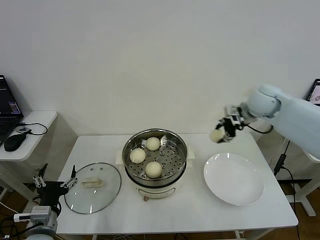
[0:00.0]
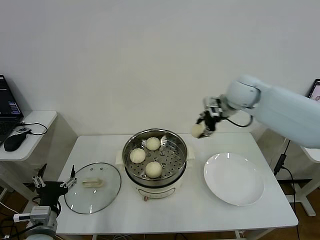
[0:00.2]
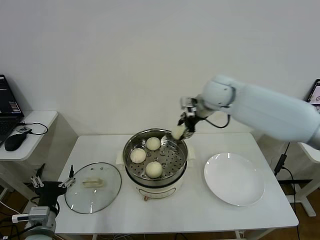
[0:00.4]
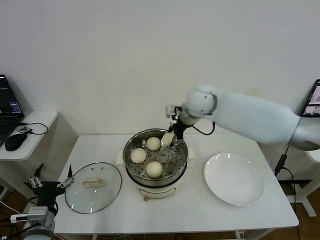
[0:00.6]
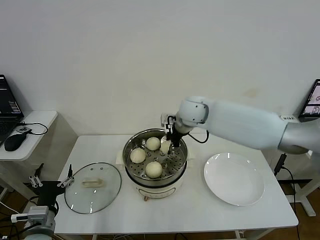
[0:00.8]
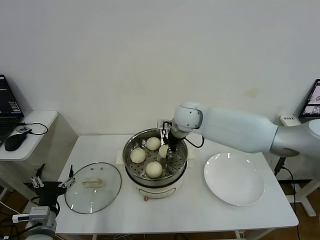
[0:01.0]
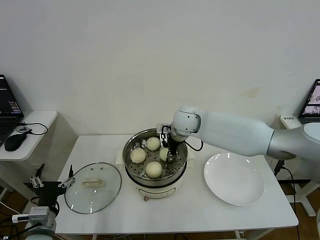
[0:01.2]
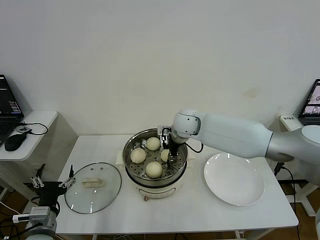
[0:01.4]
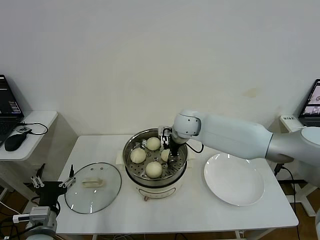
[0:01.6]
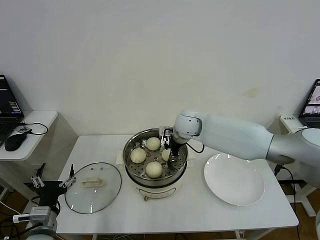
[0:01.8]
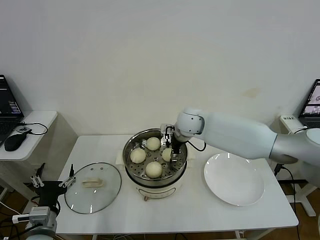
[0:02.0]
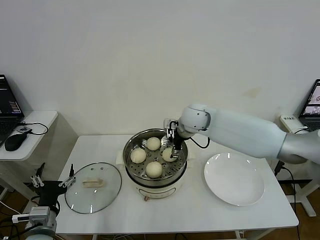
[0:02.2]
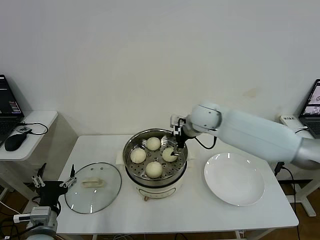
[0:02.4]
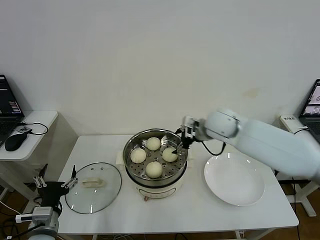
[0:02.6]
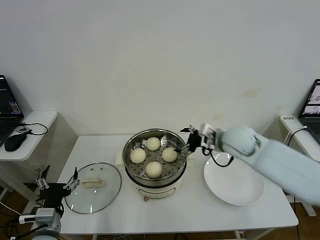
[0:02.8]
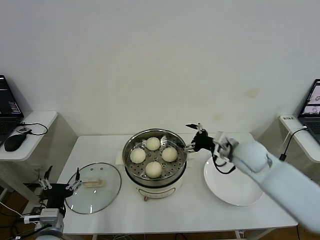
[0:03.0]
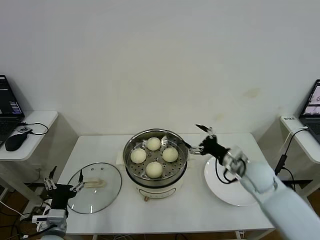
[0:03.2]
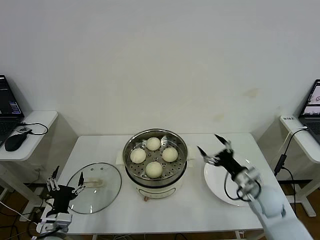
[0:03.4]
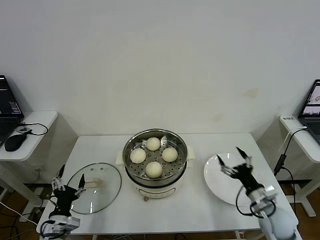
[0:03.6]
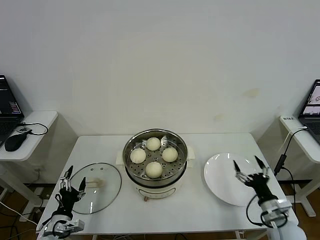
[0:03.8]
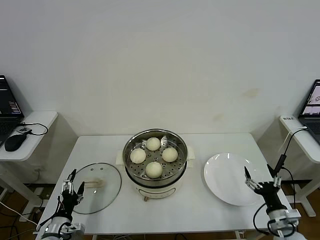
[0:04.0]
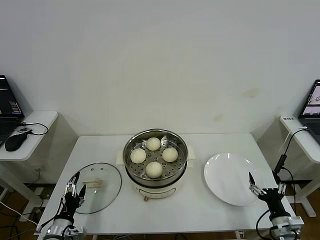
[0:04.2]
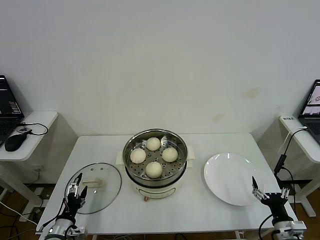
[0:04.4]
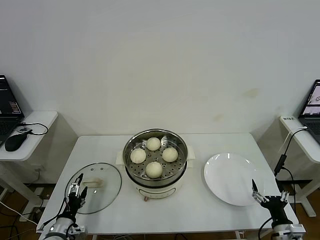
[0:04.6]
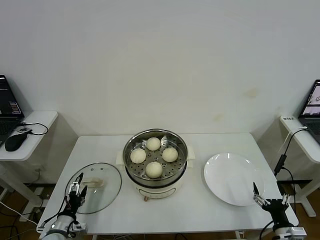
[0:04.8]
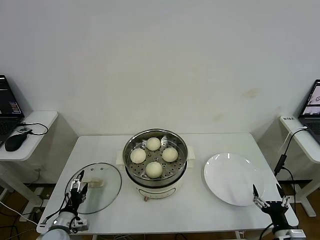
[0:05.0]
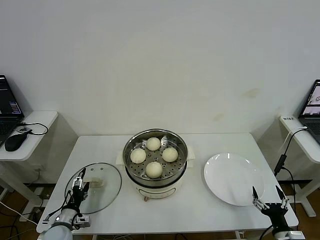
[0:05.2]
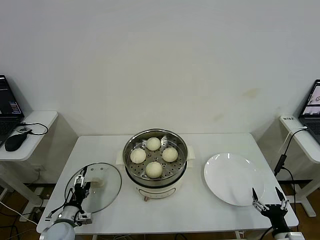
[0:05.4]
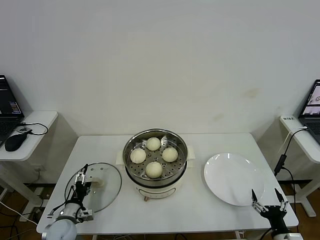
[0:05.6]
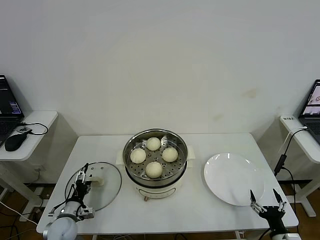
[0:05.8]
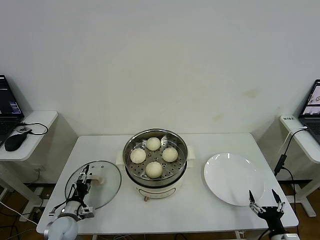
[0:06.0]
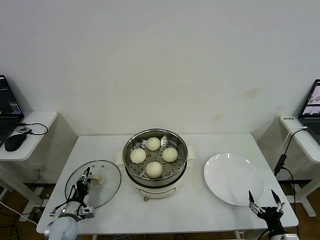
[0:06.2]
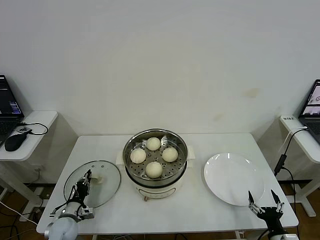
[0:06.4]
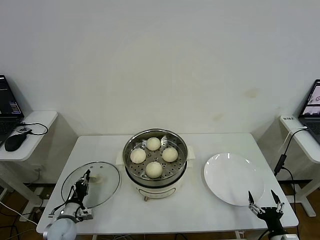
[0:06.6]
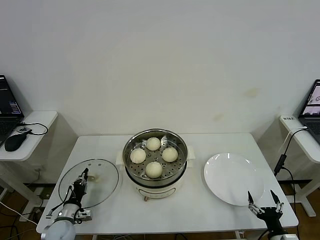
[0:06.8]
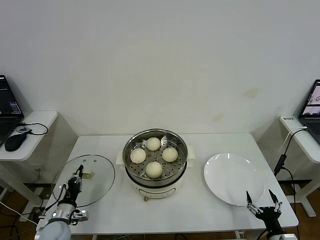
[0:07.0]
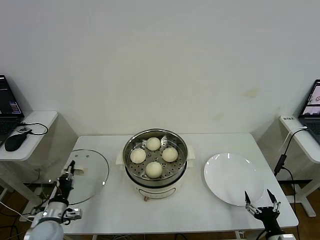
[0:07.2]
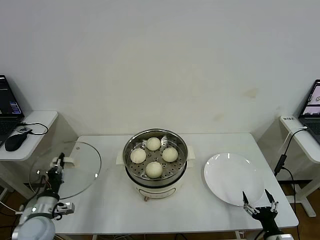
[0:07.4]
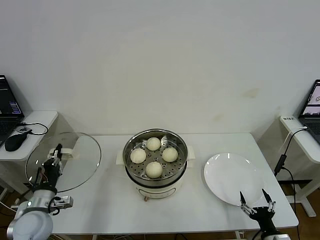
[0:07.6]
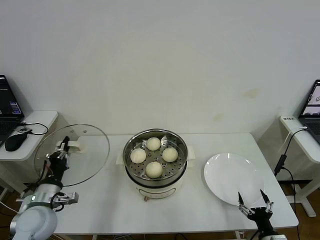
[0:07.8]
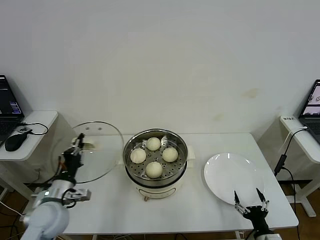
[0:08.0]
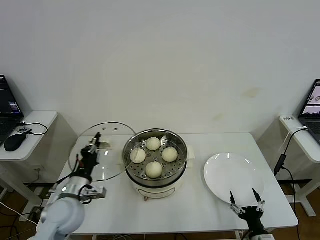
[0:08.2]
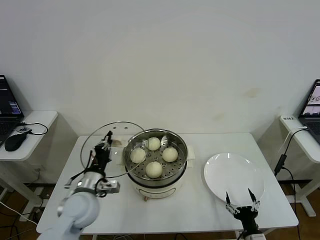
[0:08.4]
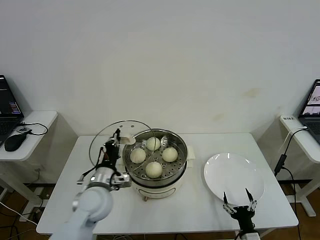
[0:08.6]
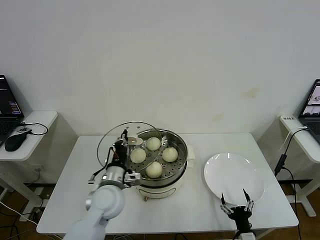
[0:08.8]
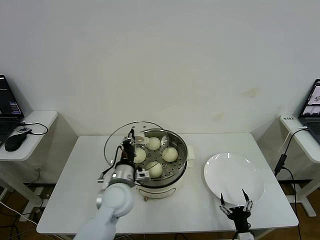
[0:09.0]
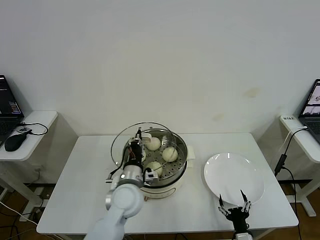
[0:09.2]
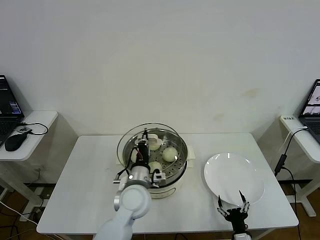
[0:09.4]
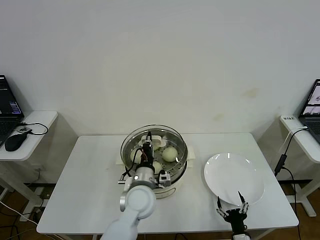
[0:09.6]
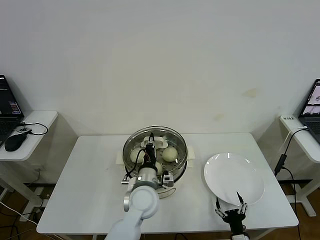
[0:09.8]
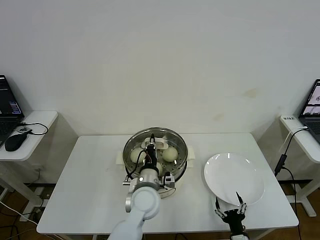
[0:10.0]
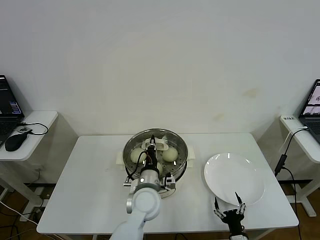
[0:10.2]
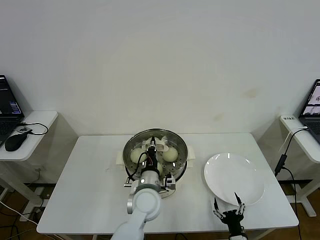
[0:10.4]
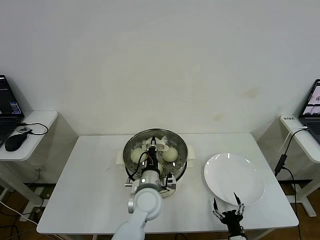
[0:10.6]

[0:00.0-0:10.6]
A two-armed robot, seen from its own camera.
Step, 0:00.0 to 0:02.0: Place the baozi on the steamer with right gripper.
Step, 0:02.2 to 0:06.6: Grasp the pot lid with left gripper.
0:00.0 to 0:01.6: The right gripper moves to the left and downward, some 25 cm.
0:01.6 to 0:03.0: The right gripper moves to the right and backward, approximately 20 cm, and opens up.
0:03.0 to 0:04.6: The left gripper goes some 10 cm downward; the right gripper goes roughly 35 cm backward, downward and to the right.
0:04.6 to 0:06.0: The left gripper moves forward, about 5 cm.
0:06.0 to 0:07.6: The left gripper shifts roughly 15 cm upward, and closes its fingers.
0:07.6 to 0:09.0: The right gripper travels to the left by approximately 10 cm; the left gripper travels to the right by about 25 cm.
0:09.0 to 0:10.6: The left gripper shifts roughly 10 cm to the right.

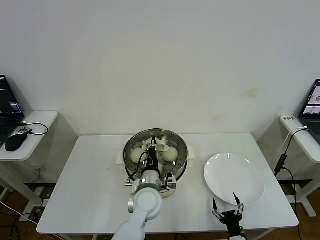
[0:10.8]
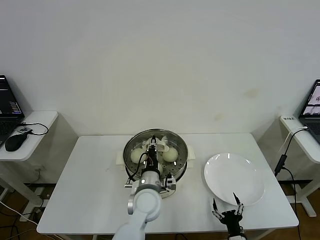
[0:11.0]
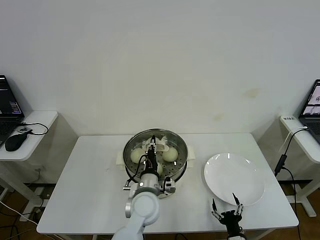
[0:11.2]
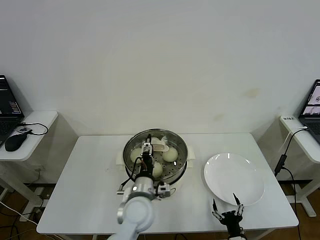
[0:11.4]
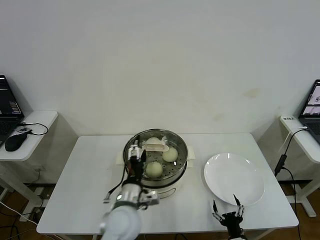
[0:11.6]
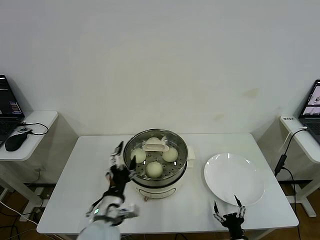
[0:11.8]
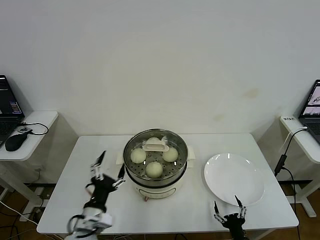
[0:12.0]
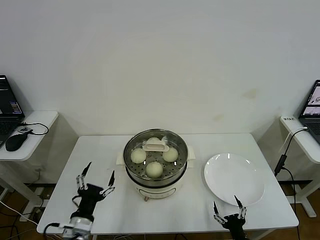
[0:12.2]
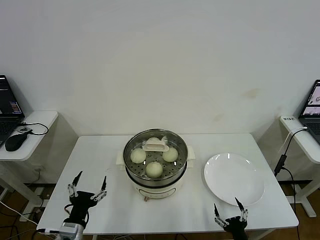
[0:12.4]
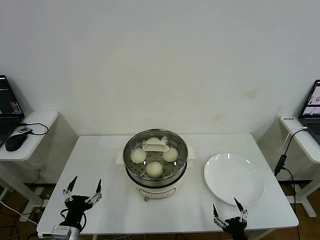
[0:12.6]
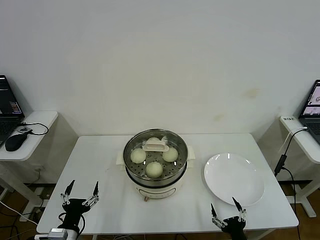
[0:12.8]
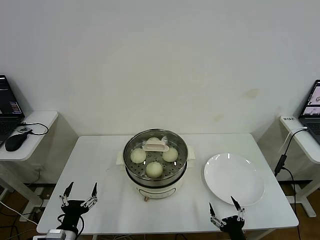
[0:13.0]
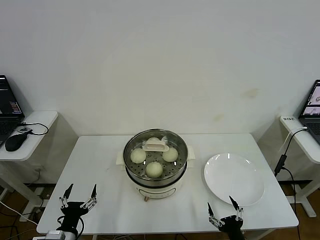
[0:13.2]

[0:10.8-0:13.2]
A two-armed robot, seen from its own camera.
0:10.8 to 0:12.0: The left gripper shifts roughly 20 cm to the left and backward, and opens.
0:12.0 to 0:13.2: The left gripper heads to the left, downward and backward, covering roughly 15 cm; the right gripper shifts some 5 cm upward.

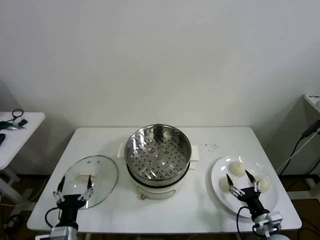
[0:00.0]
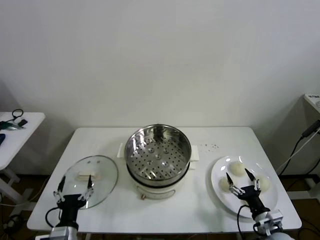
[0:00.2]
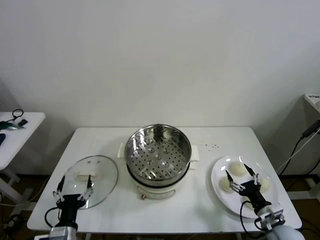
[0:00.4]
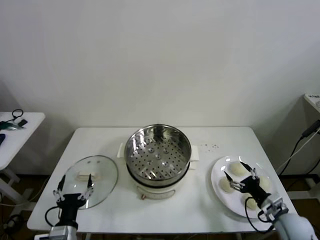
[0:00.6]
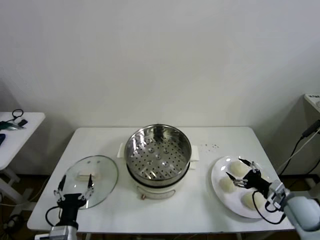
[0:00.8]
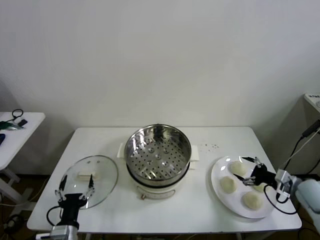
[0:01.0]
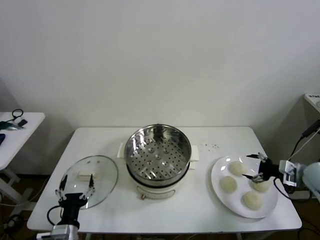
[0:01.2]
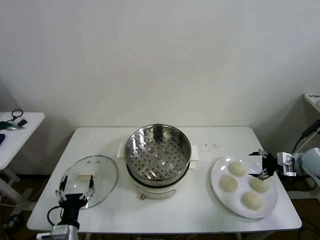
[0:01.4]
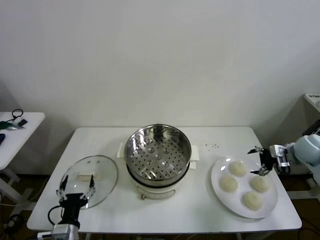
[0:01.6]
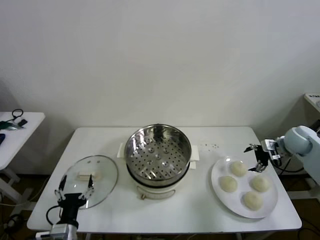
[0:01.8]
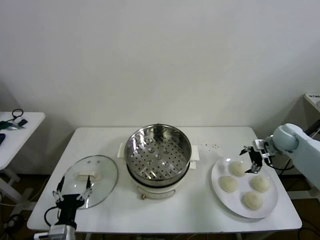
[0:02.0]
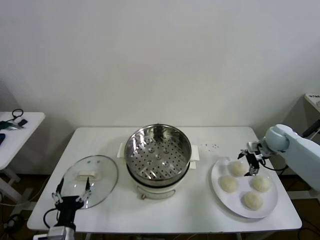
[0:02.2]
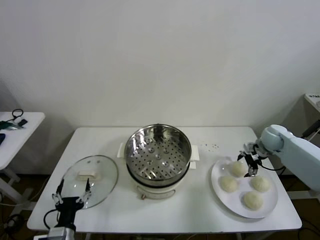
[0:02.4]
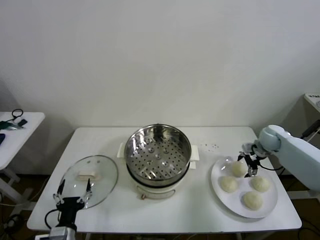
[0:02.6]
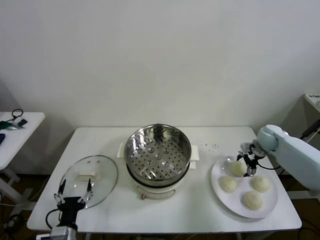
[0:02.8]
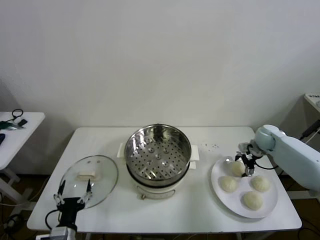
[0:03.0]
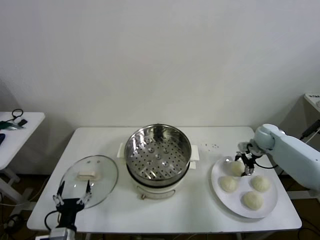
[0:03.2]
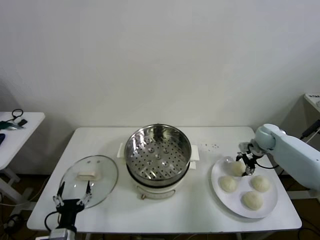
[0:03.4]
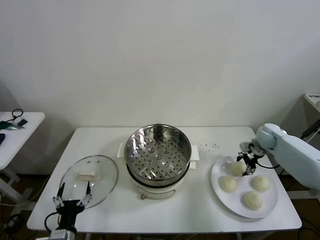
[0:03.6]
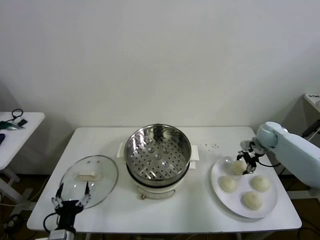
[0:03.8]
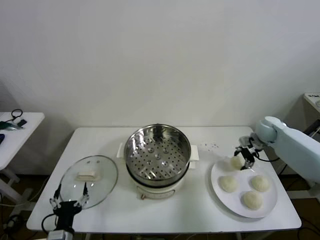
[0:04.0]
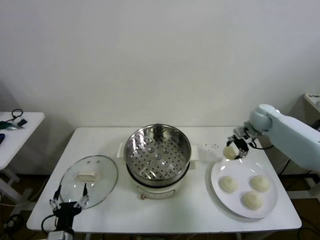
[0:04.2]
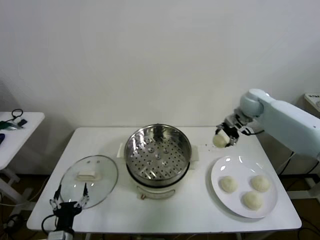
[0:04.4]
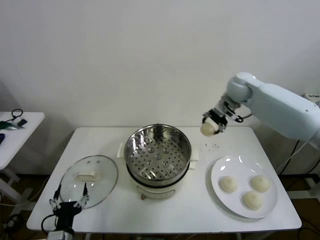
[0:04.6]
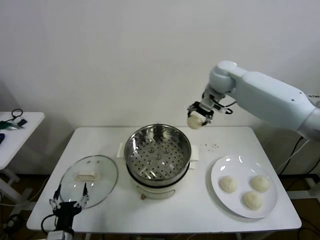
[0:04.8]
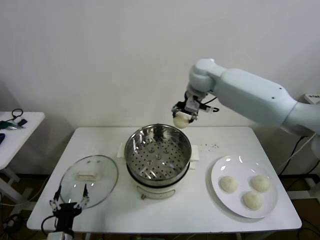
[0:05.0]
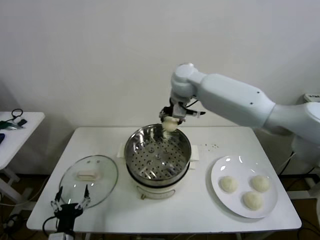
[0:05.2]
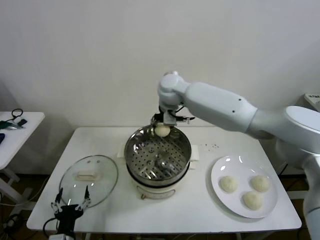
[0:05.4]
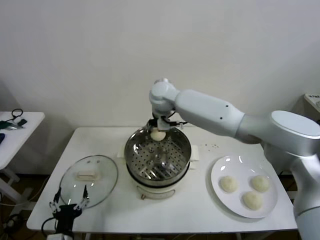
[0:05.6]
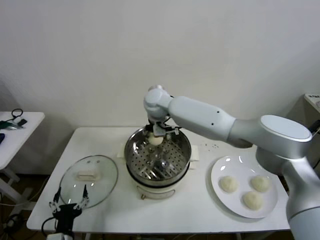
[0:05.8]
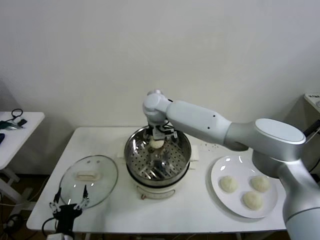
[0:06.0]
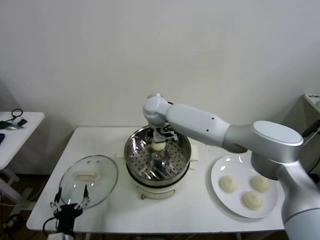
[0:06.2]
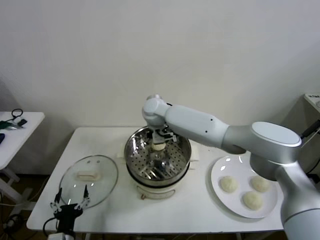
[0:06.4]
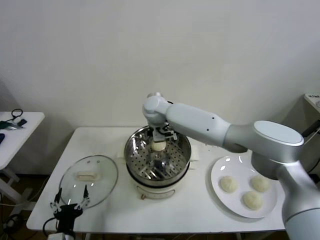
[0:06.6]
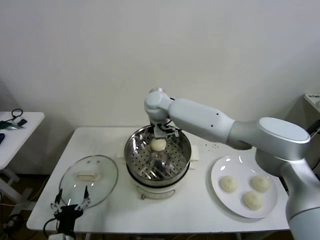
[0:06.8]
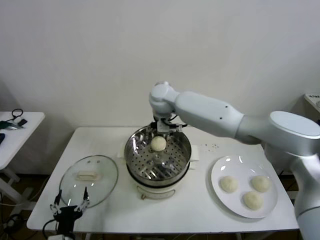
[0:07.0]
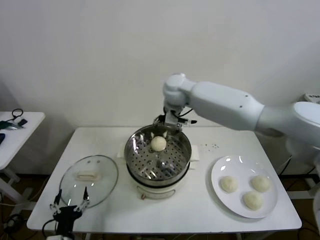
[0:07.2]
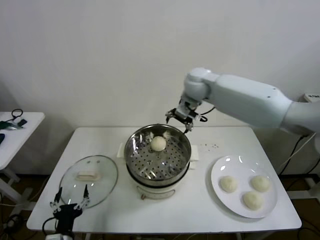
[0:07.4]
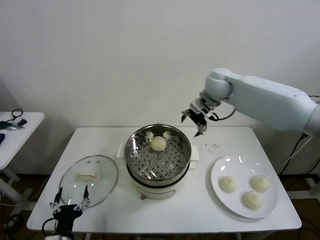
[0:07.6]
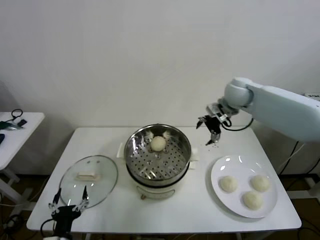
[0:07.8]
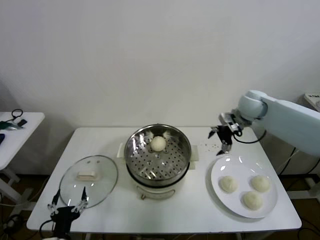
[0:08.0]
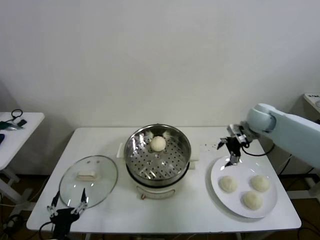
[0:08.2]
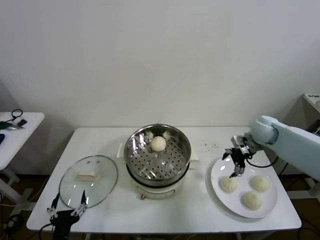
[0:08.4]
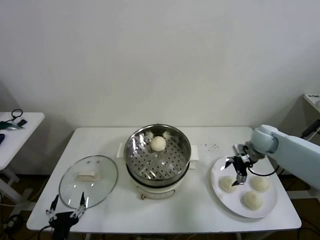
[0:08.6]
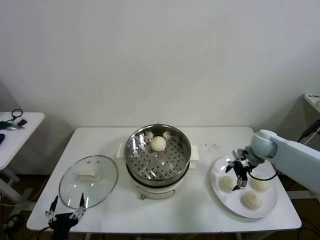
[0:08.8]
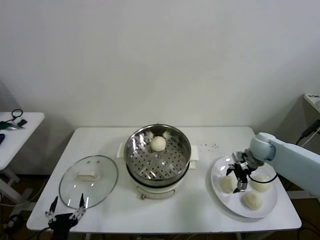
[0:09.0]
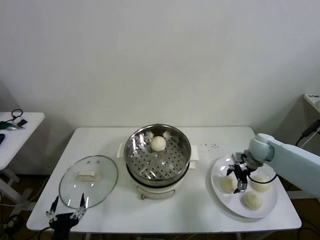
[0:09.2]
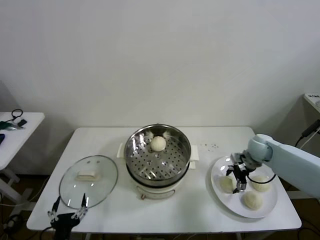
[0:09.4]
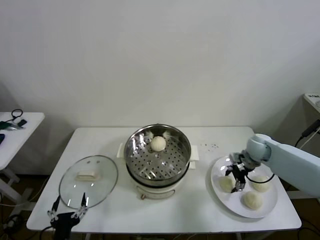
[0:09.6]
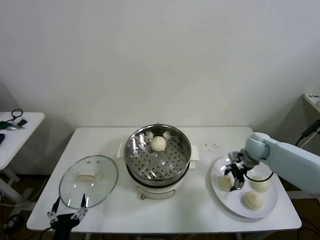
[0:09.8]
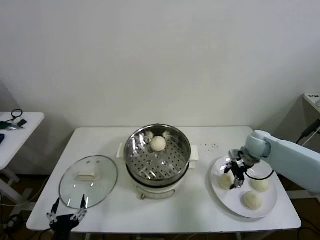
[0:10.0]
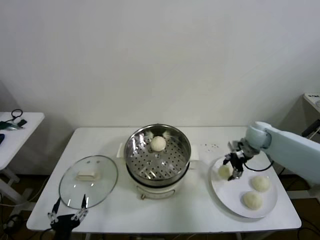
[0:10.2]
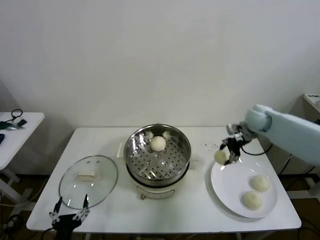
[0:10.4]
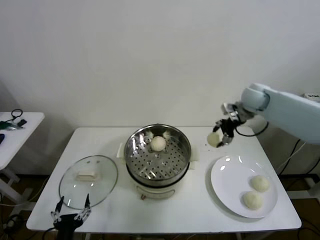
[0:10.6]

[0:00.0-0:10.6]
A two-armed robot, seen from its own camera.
Step, 0:00.0 to 0:03.4: Grasp the baozi in the plate with right gripper.
Step, 0:03.6 to 0:06.2: Place the baozi on the steamer with right gripper.
Step, 0:06.6 to 0:09.4: Grasp the baozi in the plate with right gripper.
0:01.6 to 0:03.0: The right gripper travels forward, to the left and downward by about 10 cm.
0:03.0 to 0:04.6: The right gripper moves upward and to the left, roughly 30 cm, and closes up.
0:04.6 to 0:06.0: The right gripper heads to the left, covering about 25 cm.
0:06.0 to 0:07.6: The right gripper travels to the right by roughly 25 cm, and opens its fingers.
0:07.6 to 0:09.0: The right gripper shifts roughly 25 cm downward and to the right.
0:09.0 to 0:10.6: The right gripper shifts roughly 20 cm upward and forward, and closes its fingers.
